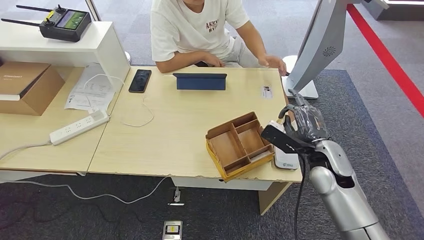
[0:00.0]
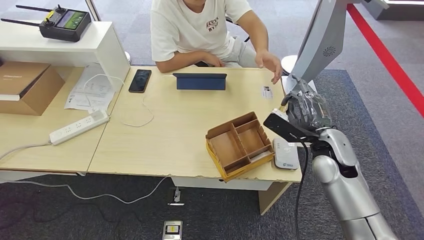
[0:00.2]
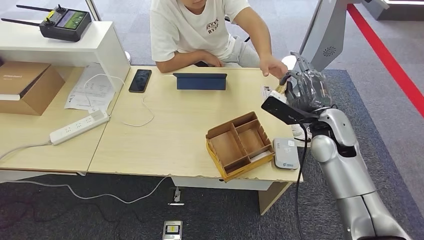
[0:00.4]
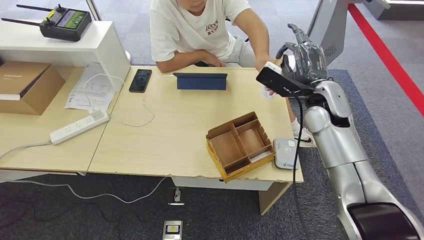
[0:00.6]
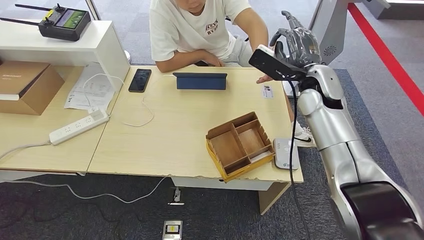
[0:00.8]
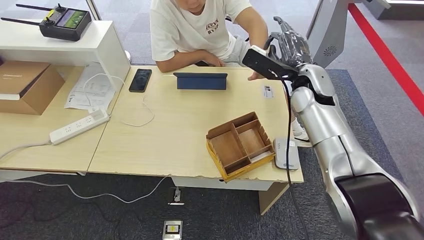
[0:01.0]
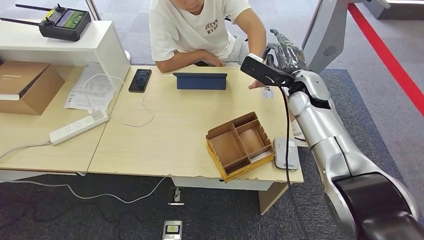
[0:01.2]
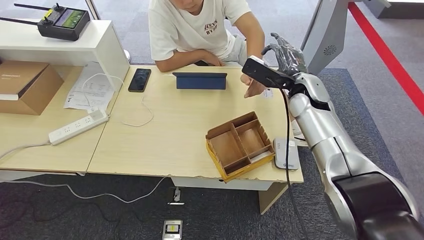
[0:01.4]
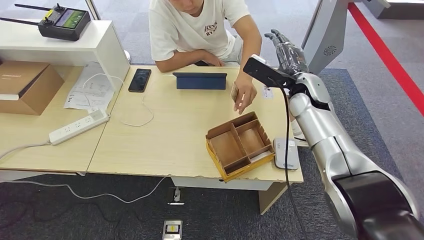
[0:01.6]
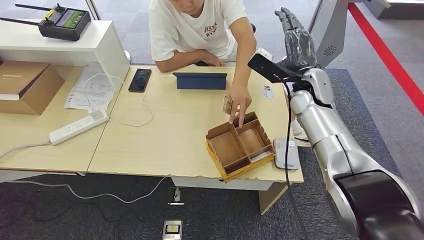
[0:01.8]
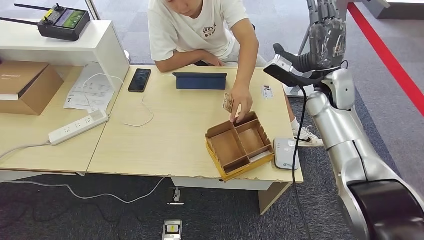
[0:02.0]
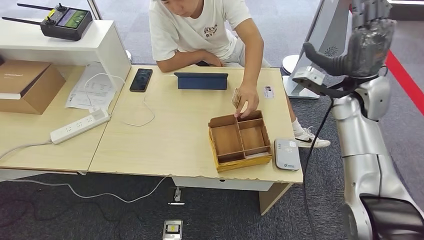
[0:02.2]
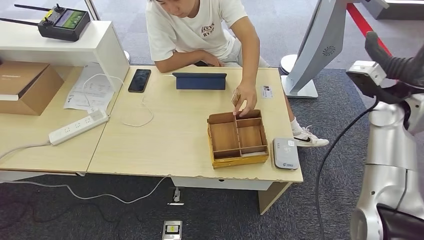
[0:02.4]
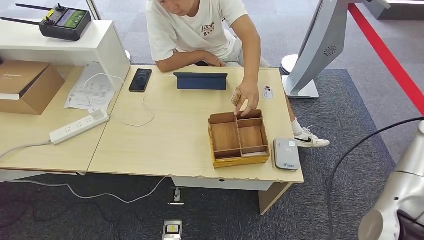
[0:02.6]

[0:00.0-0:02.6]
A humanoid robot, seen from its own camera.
Step, 0:00.4 to 0:02.6: Hand the room key to the person.
0:00.0 to 0:01.2: The right hand travels forward and upward by about 15 cm.
0:01.2 to 0:02.6: The right hand is displaced to the right and backward by some 25 cm.
